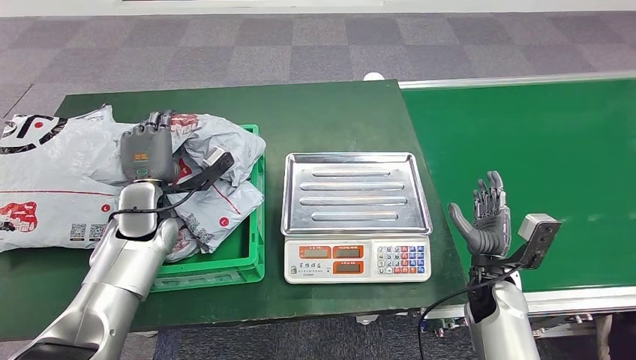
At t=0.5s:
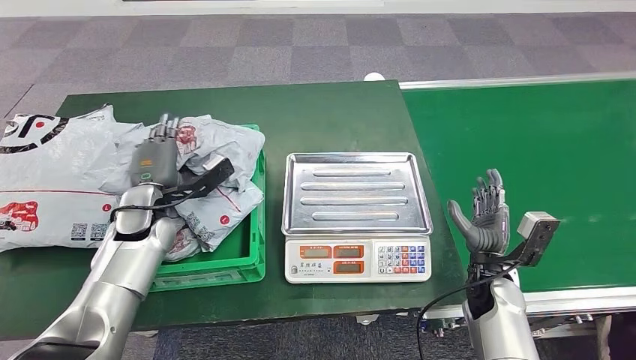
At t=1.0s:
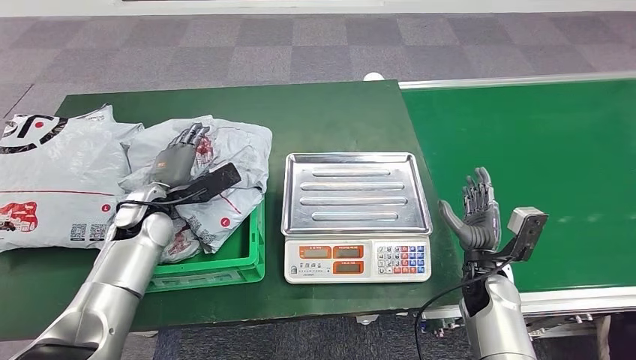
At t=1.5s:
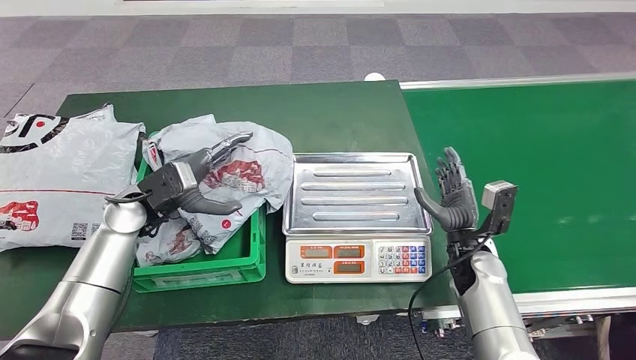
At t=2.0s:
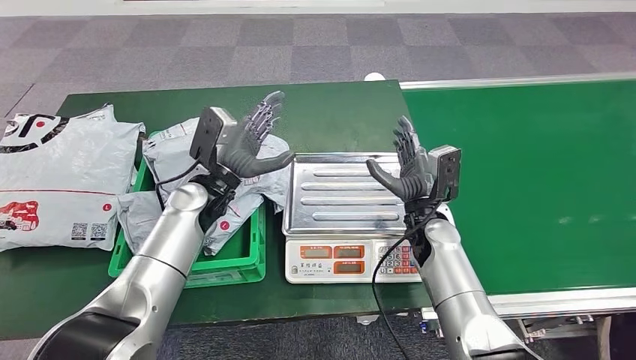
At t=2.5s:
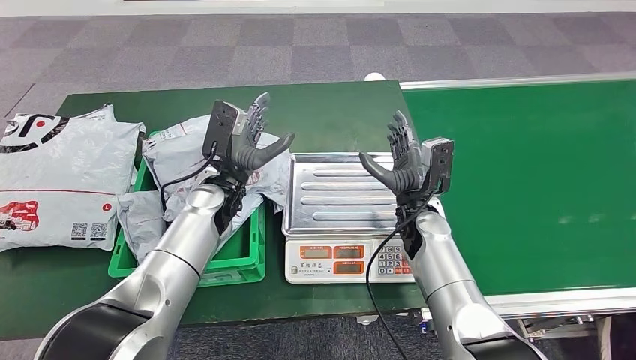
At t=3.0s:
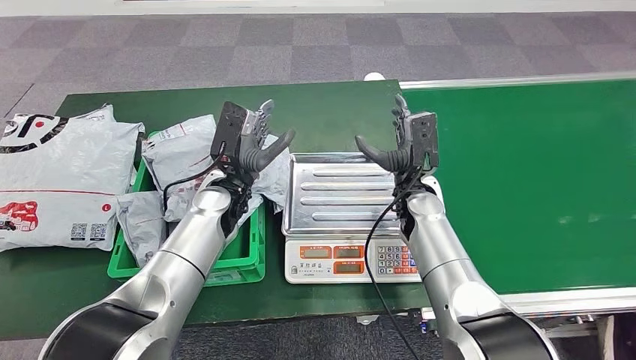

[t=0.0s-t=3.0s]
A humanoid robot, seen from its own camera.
Step, t=0.0s to t=3.0s: Place the parcel into the delivery box.
t=0.0s to t=1.5s: The right hand shifts by about 5 cm.

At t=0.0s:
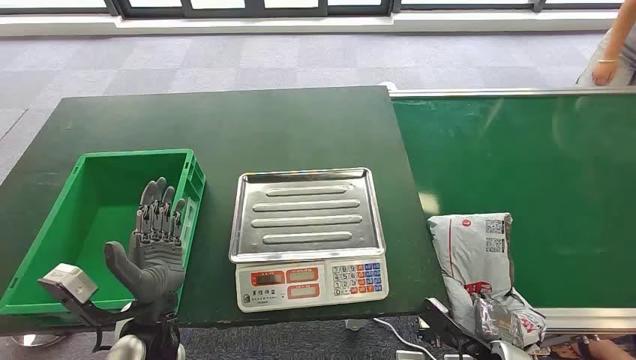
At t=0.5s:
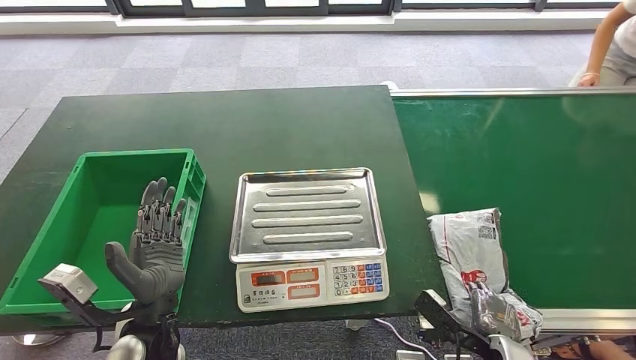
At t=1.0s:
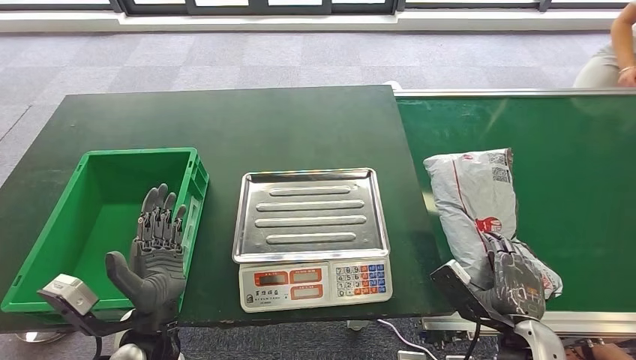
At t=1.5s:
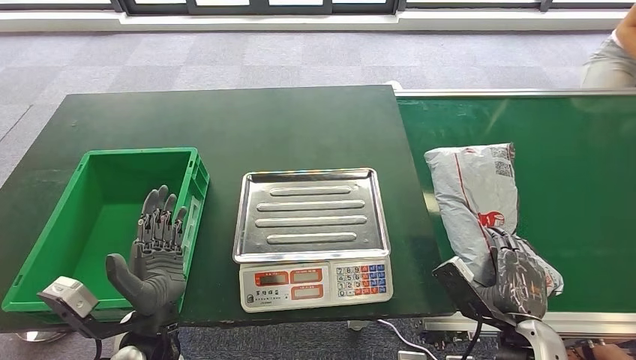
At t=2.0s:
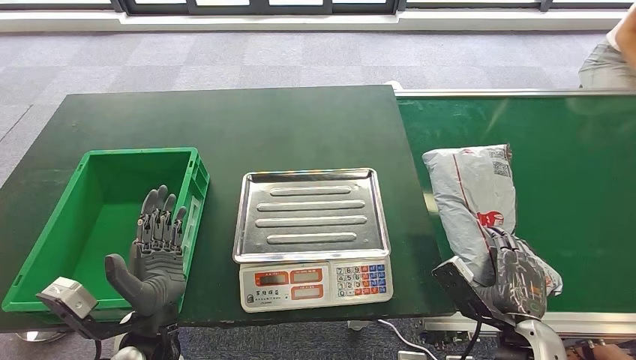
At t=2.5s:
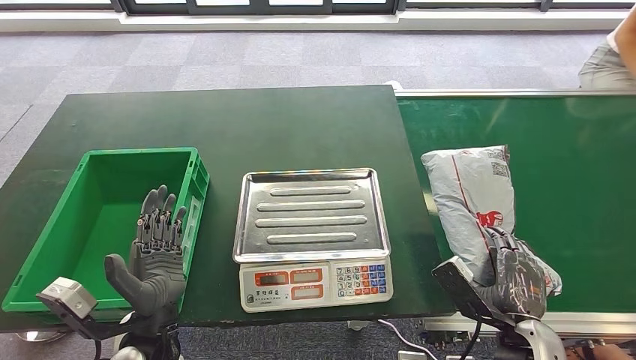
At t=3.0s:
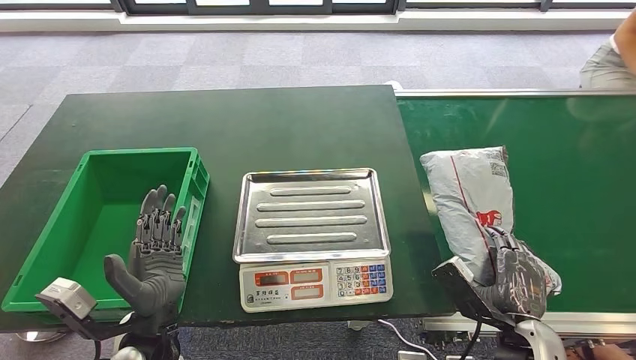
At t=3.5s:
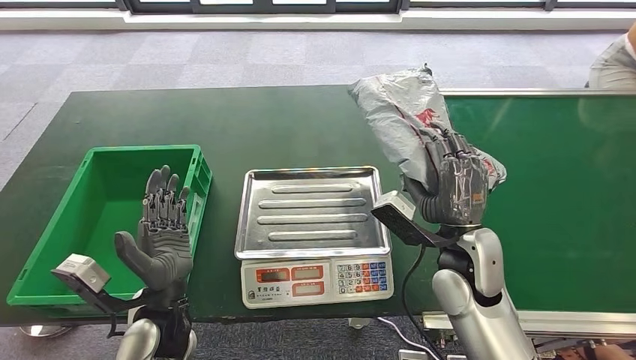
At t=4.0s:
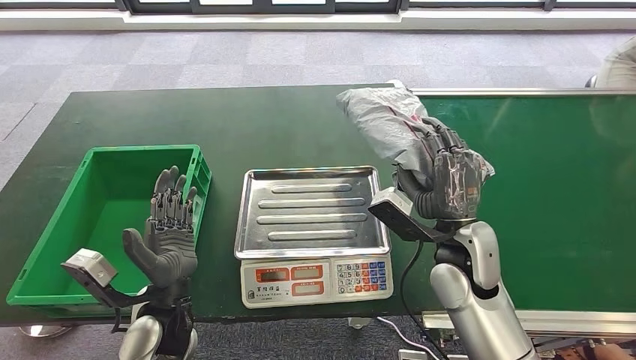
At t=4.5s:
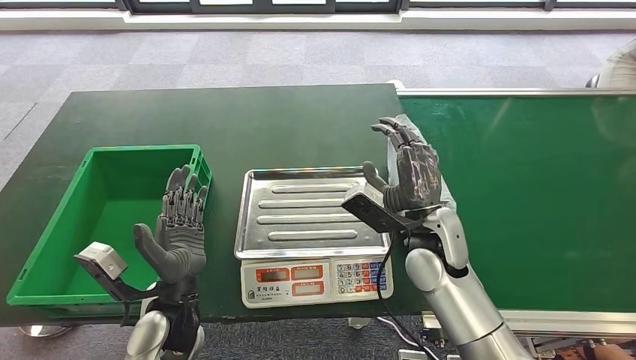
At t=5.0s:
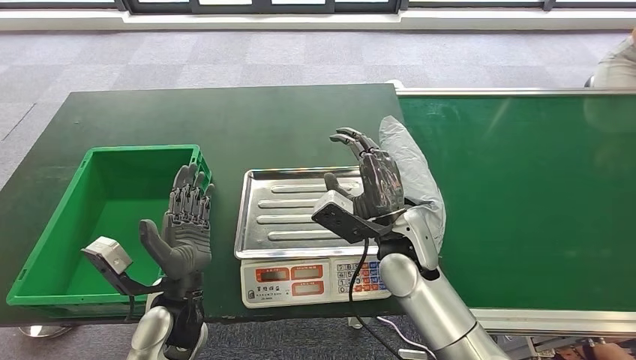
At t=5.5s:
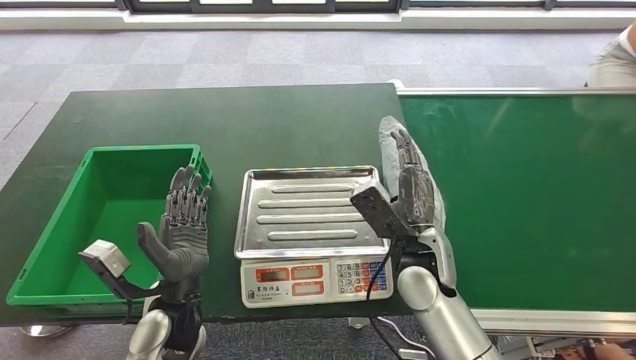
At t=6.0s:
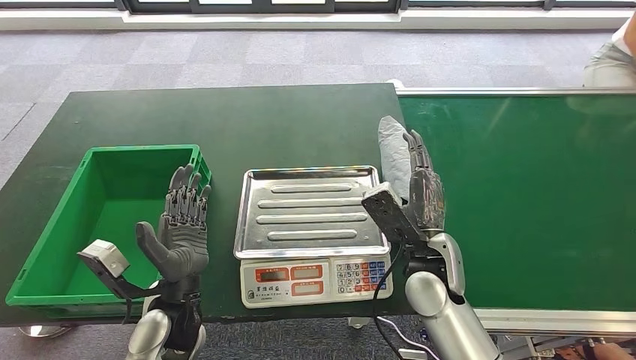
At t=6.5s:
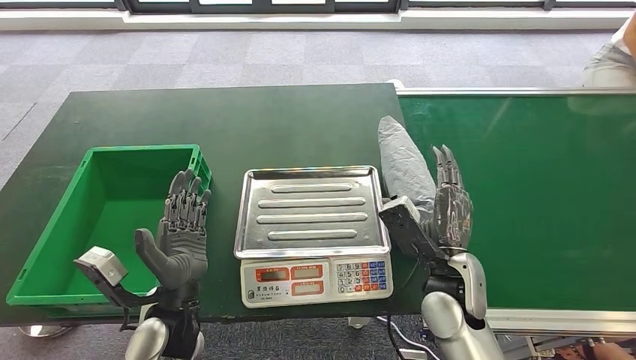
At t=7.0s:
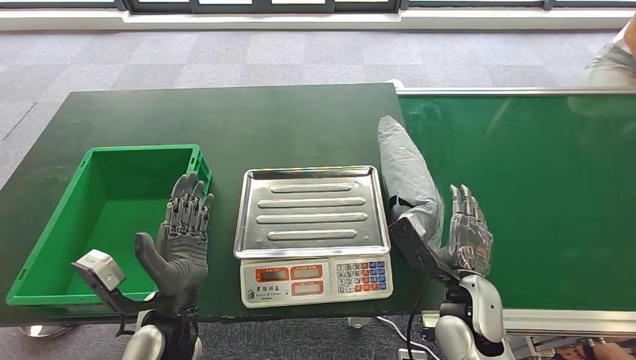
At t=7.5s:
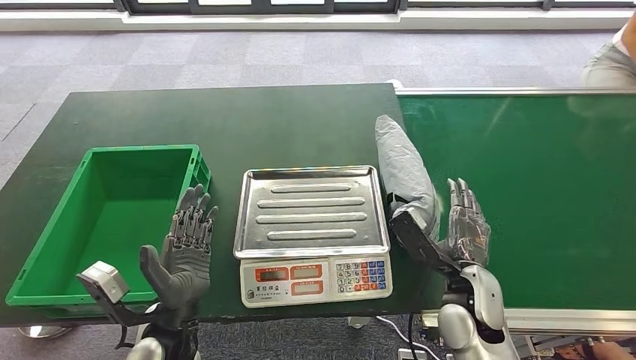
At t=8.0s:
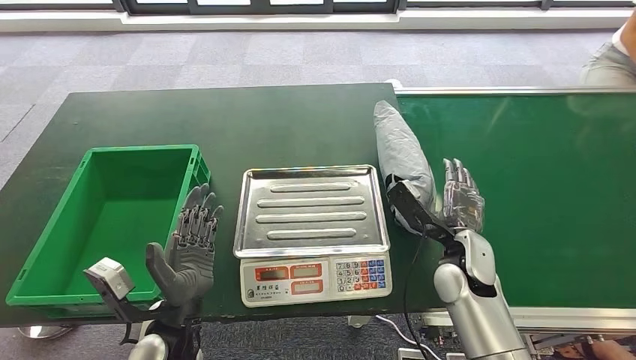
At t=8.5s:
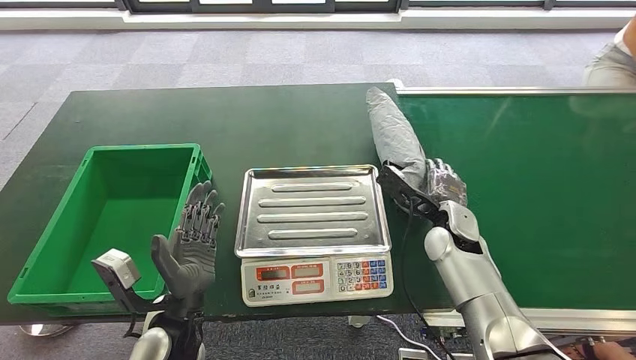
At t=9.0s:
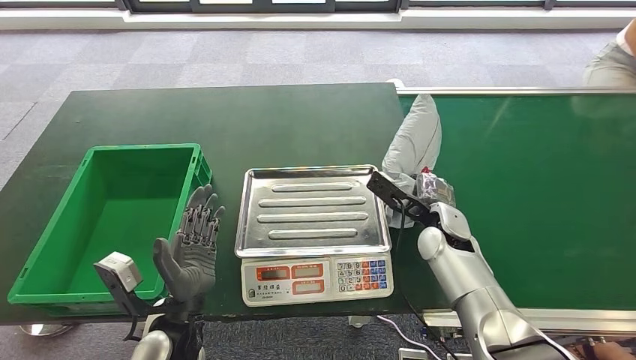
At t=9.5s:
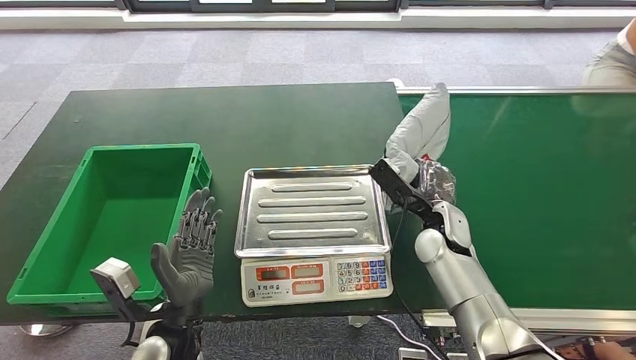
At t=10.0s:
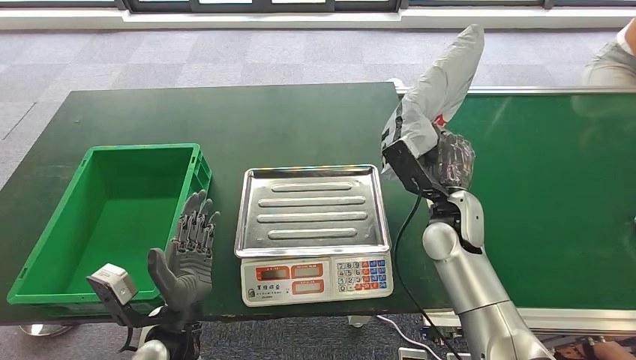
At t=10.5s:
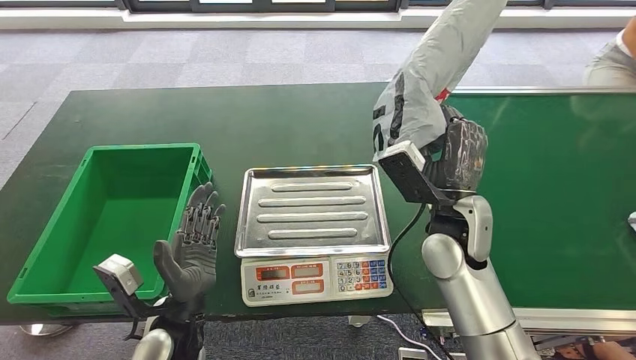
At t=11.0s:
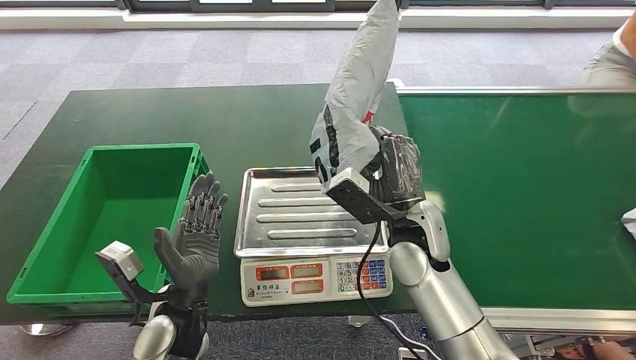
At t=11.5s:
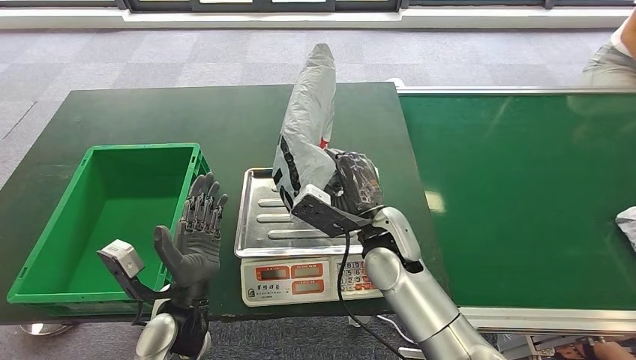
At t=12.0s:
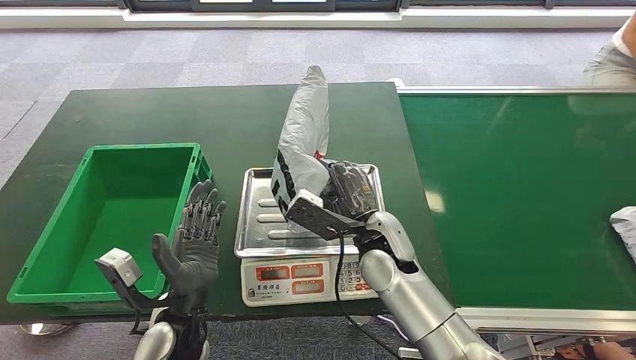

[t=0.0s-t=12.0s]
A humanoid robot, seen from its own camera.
Step, t=0.0s to t=9.5s: Take the parcel off the conveyor belt.
t=6.0s to t=8.0s: The right hand shifts about 5 cm to the right.
t=8.0s to t=10.0s: The right hand is displaced forward by roughly 5 cm.

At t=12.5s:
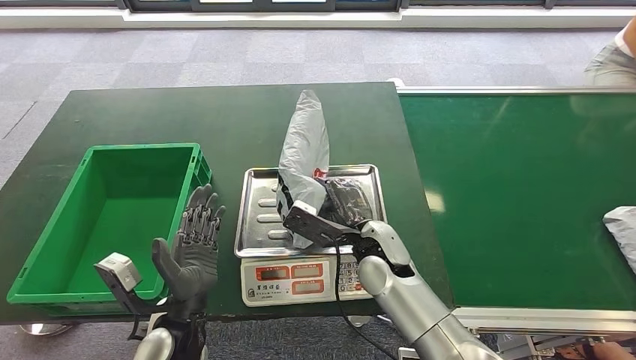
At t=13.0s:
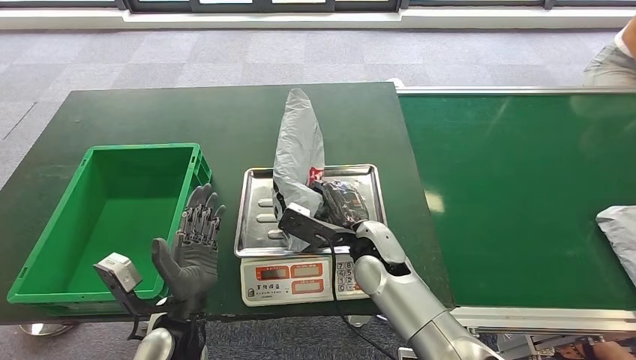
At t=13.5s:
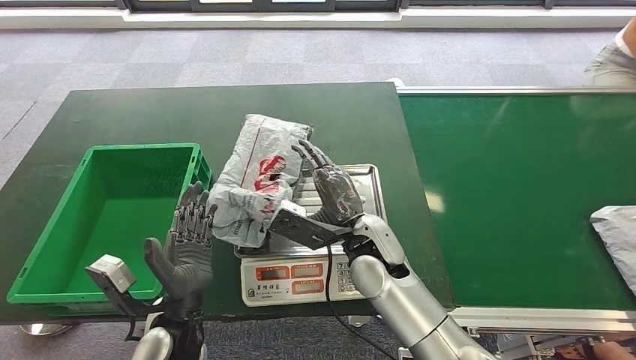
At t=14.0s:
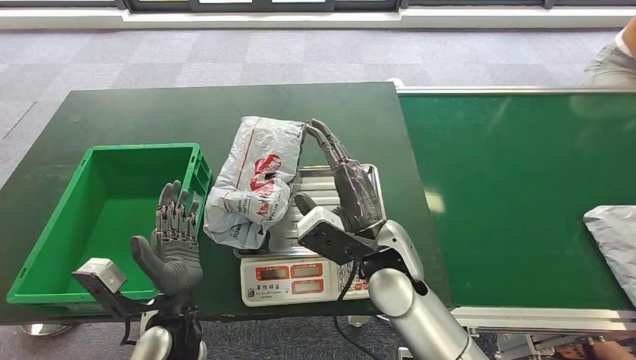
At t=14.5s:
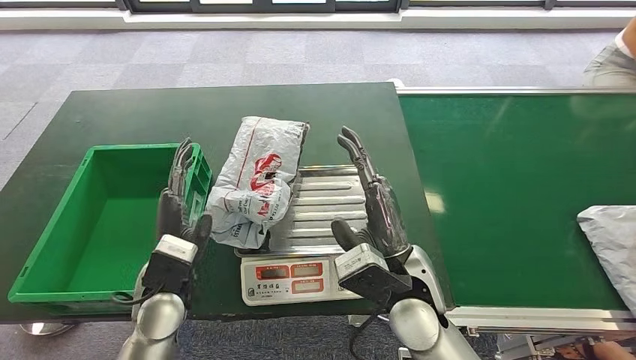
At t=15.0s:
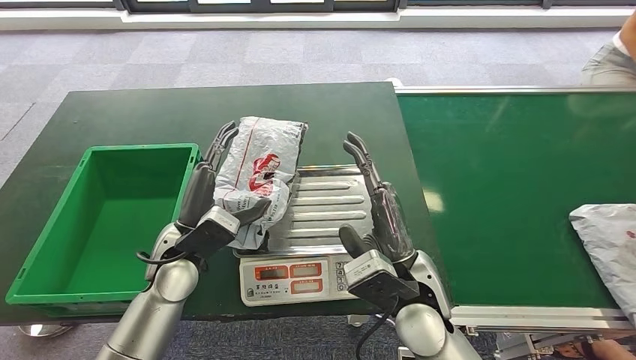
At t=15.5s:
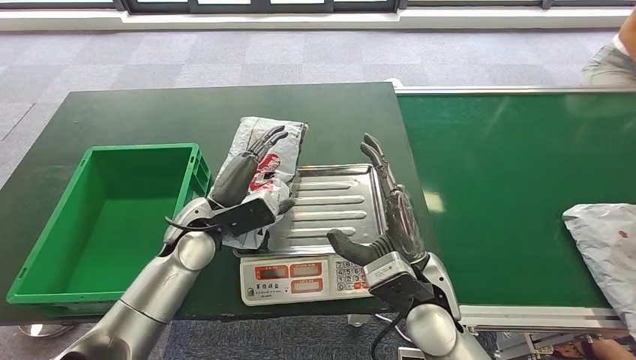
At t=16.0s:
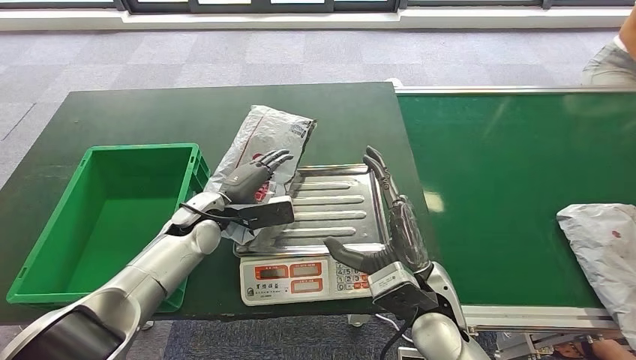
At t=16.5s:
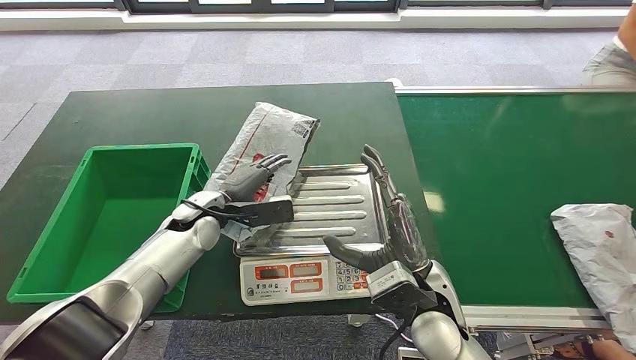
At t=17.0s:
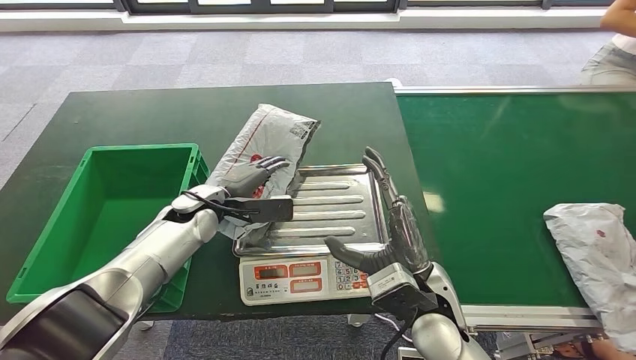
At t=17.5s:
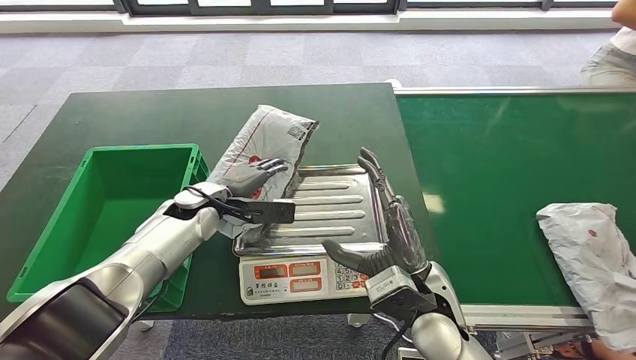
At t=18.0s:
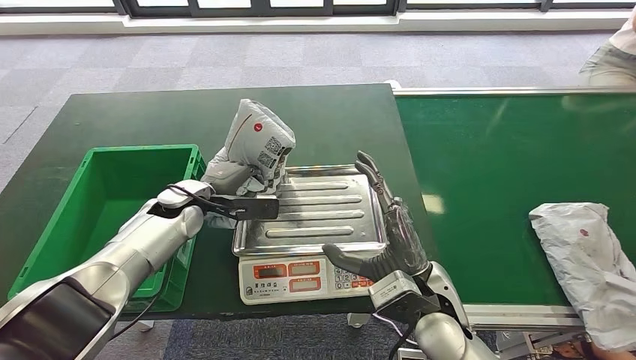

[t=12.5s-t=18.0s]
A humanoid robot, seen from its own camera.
t=14.5s to t=16.0s: The left hand shifts about 15 cm forward.
